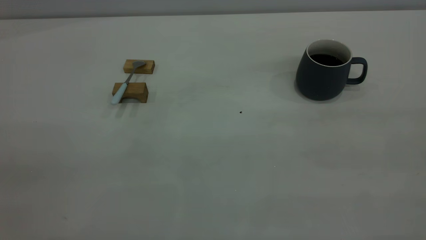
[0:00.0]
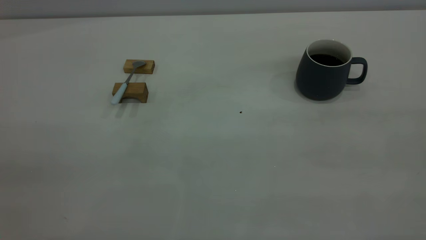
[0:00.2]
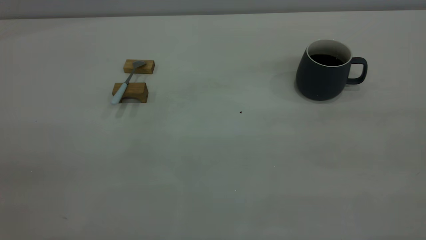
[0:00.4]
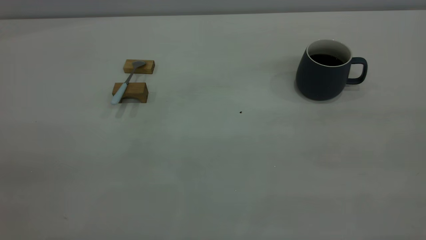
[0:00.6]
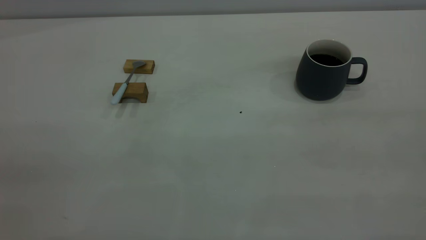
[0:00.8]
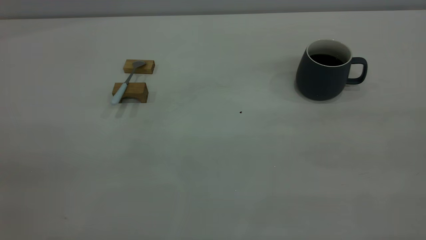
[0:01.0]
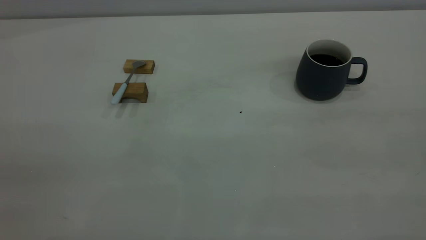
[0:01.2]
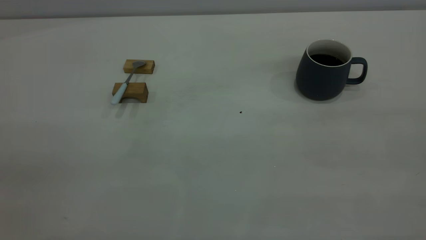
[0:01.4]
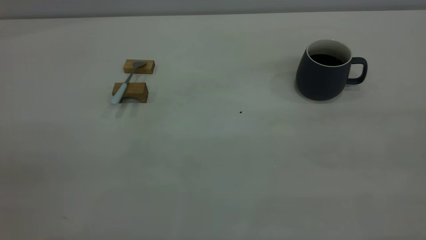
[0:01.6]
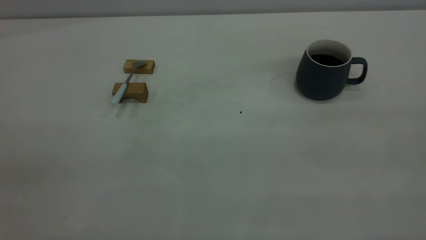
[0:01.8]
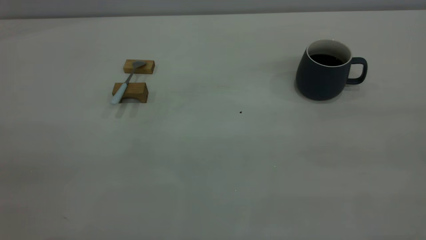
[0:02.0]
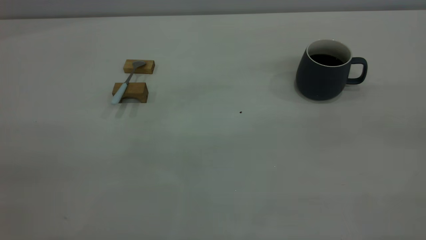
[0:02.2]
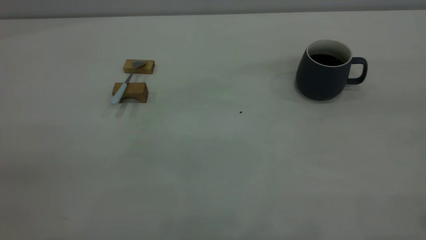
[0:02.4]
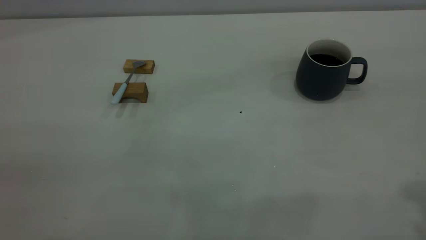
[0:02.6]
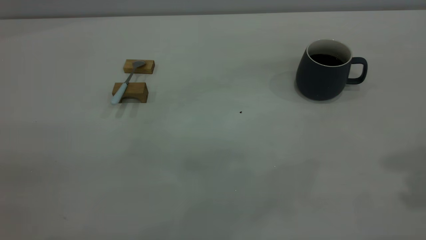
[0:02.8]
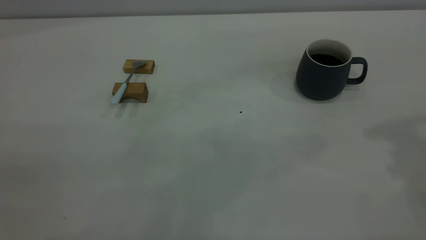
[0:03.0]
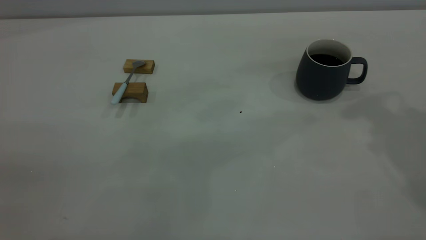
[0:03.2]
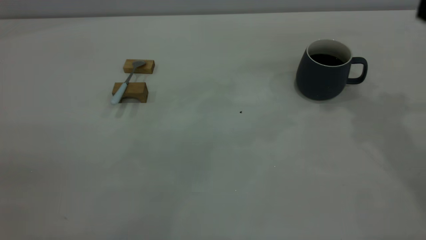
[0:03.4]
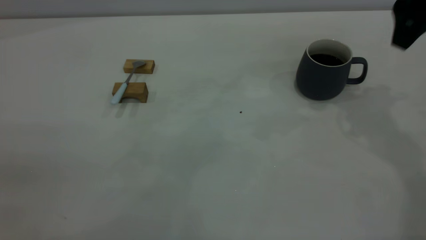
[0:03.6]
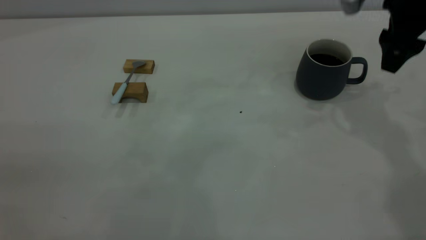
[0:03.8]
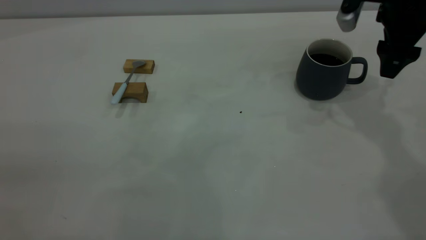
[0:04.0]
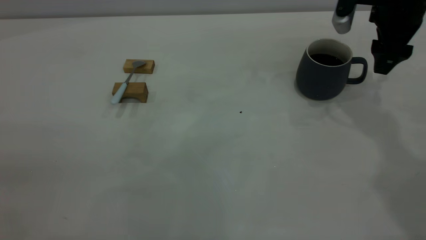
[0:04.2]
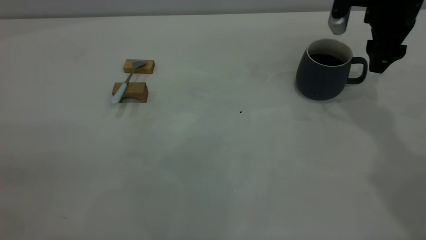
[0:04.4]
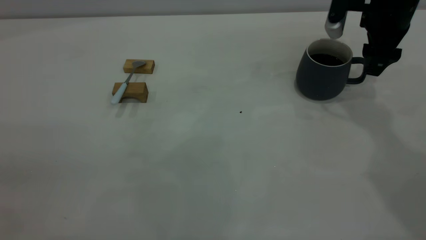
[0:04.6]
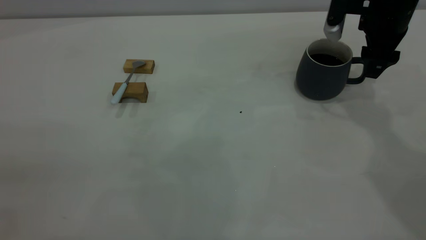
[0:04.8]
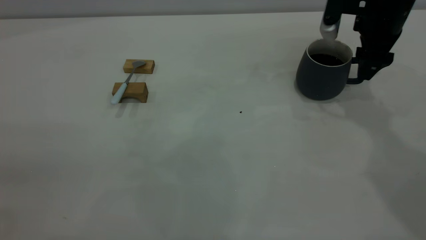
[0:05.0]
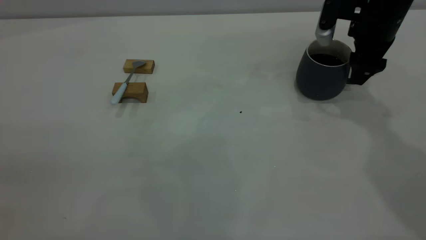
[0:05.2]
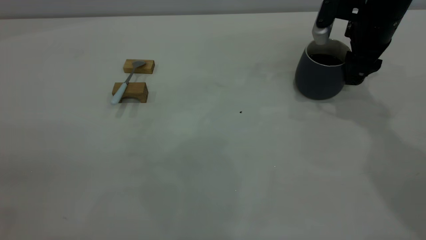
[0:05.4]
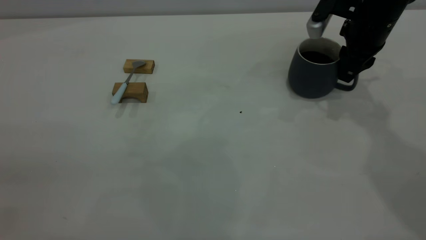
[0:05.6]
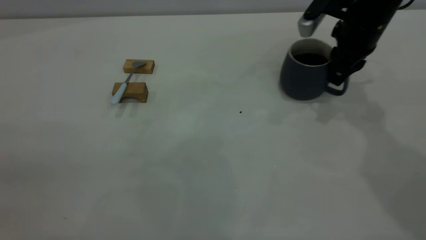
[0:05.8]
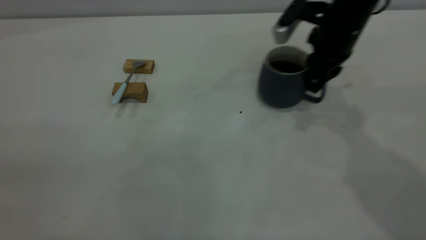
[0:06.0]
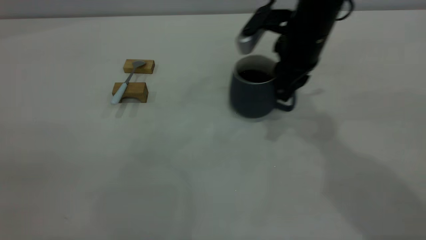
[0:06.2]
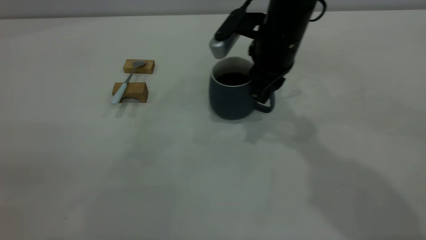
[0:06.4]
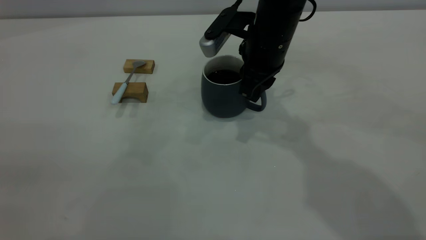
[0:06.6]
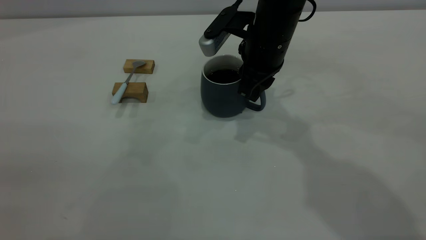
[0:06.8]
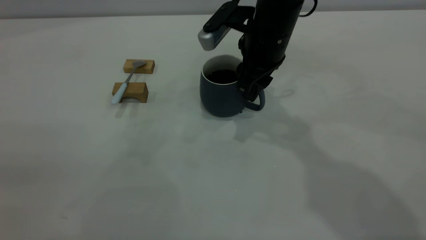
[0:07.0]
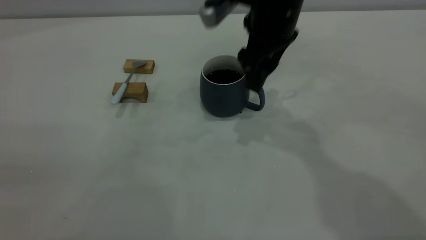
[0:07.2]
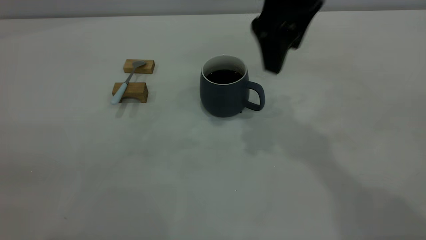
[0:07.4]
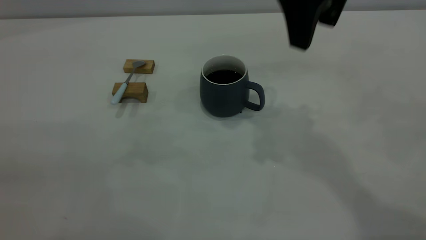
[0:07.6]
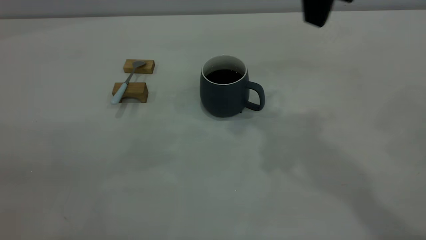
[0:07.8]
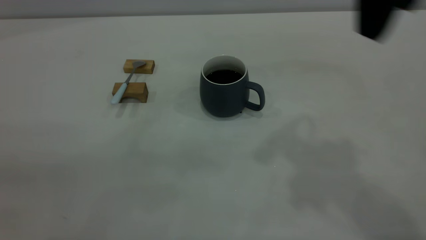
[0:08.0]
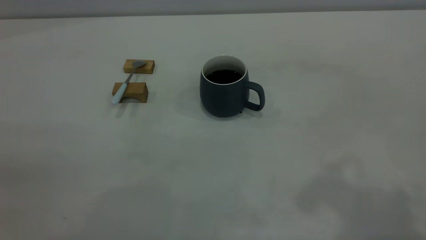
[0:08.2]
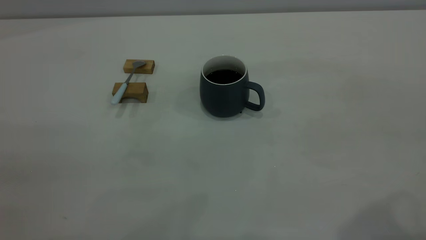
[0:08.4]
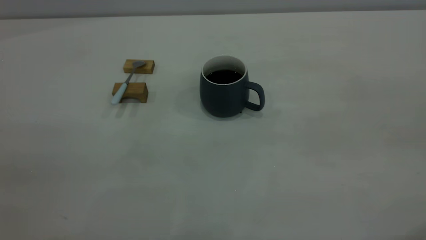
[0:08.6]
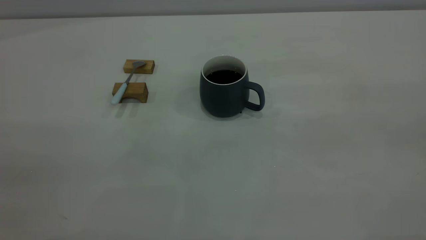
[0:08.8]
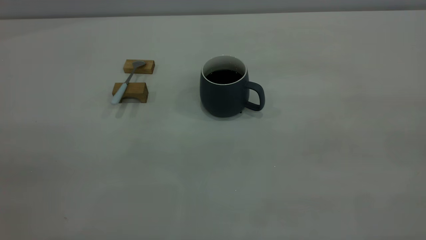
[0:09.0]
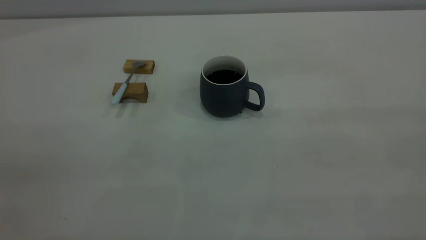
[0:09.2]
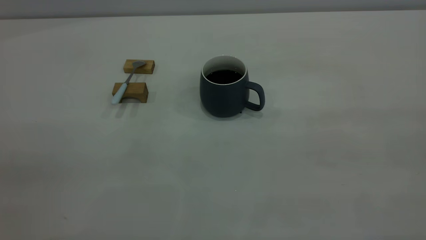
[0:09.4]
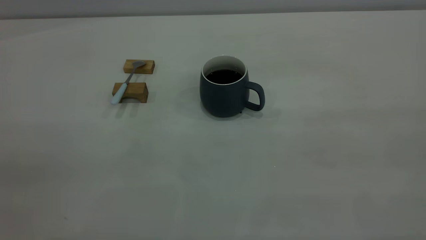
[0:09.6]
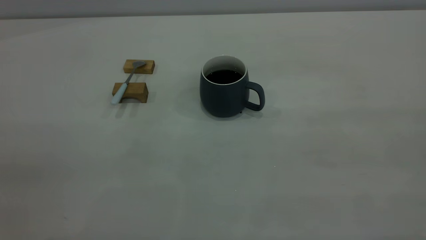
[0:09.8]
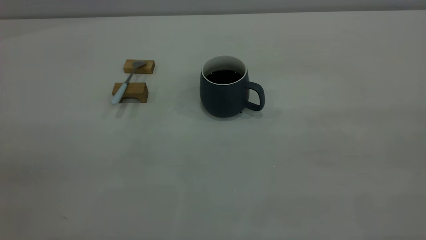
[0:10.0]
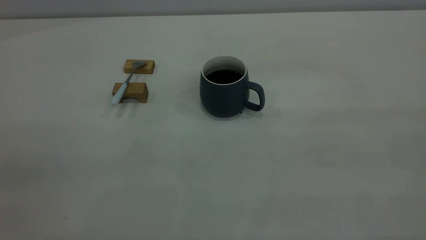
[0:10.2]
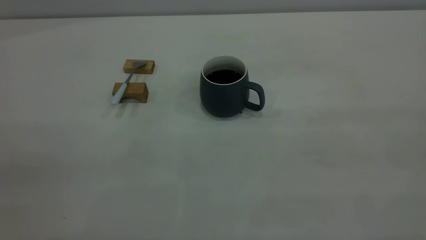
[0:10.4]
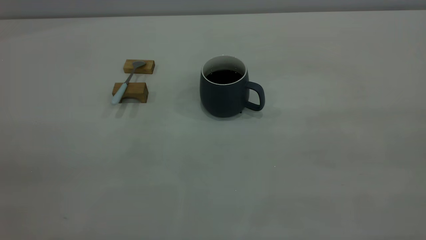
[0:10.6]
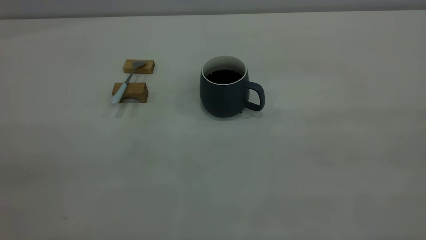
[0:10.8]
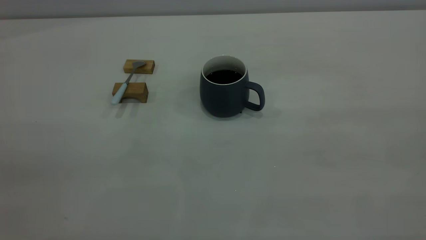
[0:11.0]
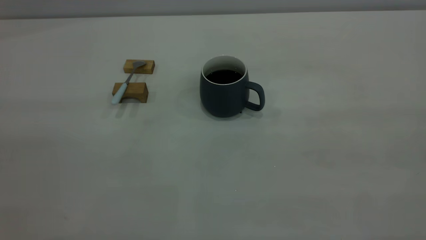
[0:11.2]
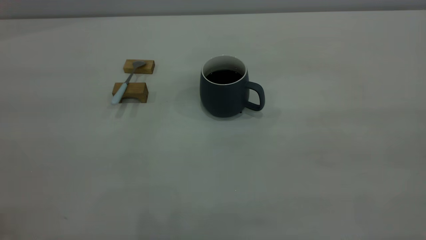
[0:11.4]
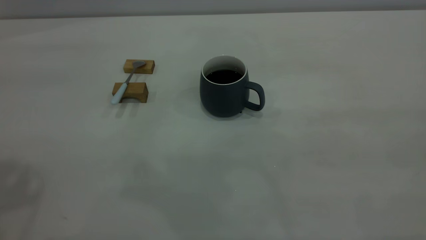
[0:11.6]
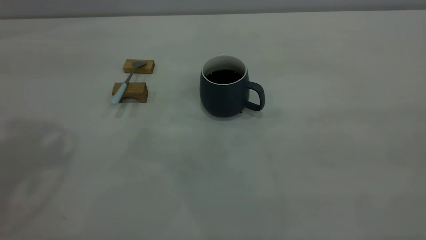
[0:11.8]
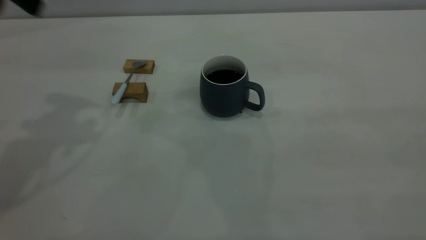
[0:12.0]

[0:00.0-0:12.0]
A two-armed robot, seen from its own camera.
Step, 0:00.0 to 0:07.4: Move the cup with coffee to the center of view.
0:00.0 to 0:01.6: The two grippers keep their place.
0:03.0 to 0:04.4: The right gripper travels downward and forward by about 25 cm.
0:04.4 to 0:06.0: The right gripper is displaced to the left by roughly 10 cm, and closes.
0:06.0 to 0:07.6: The right gripper shifts roughly 20 cm upward and backward, and opens its fingers.
0:07.6 to 0:09.0: The right gripper heads backward and to the right, covering approximately 40 cm.

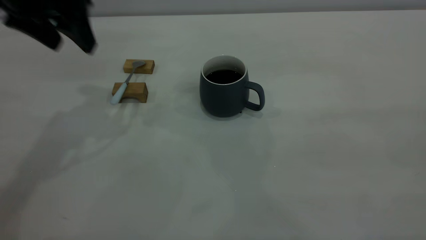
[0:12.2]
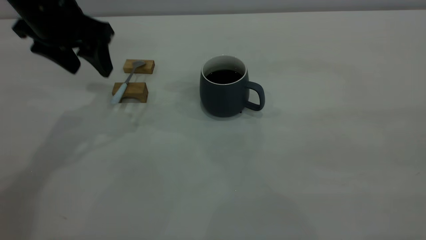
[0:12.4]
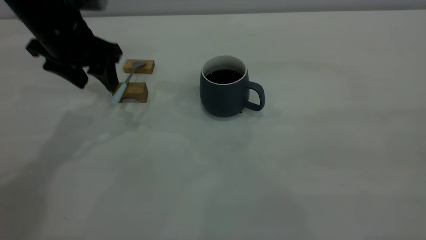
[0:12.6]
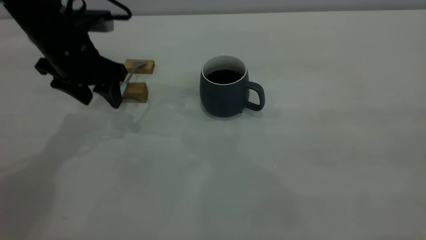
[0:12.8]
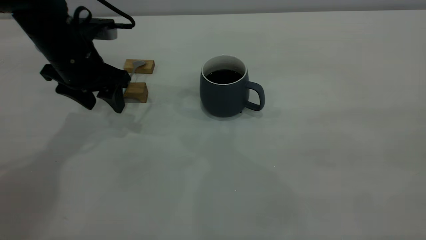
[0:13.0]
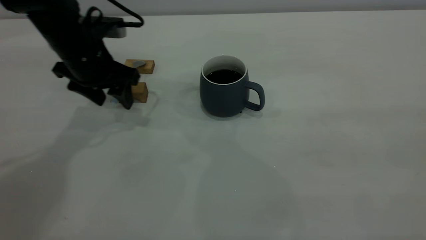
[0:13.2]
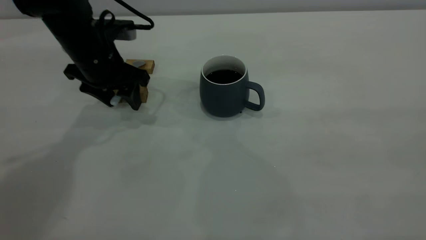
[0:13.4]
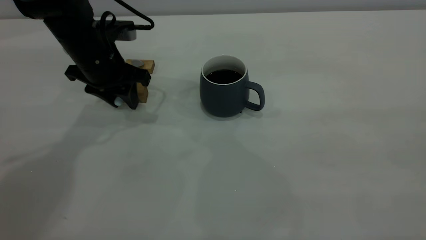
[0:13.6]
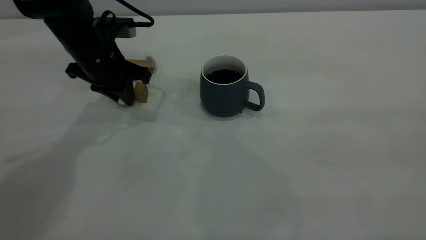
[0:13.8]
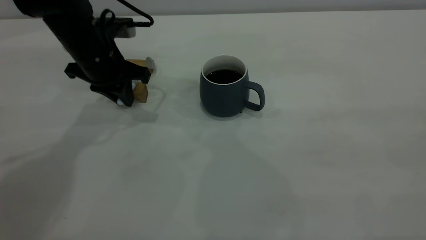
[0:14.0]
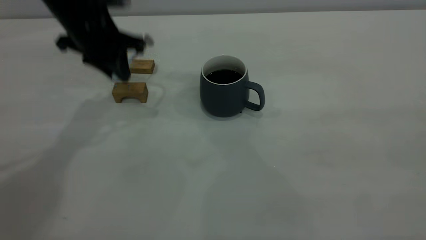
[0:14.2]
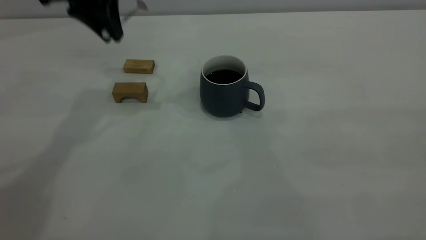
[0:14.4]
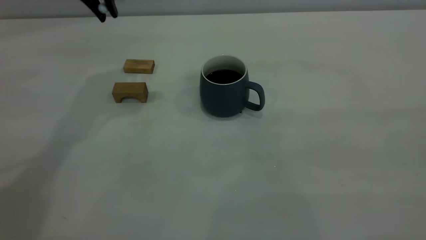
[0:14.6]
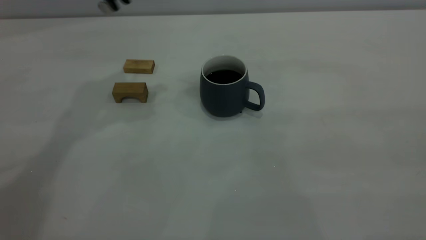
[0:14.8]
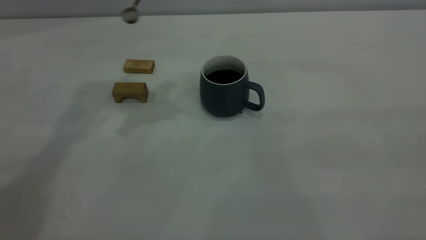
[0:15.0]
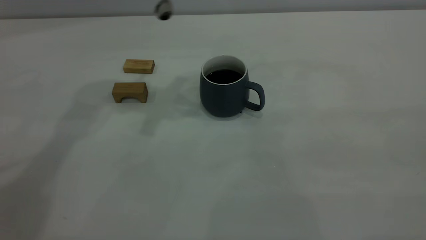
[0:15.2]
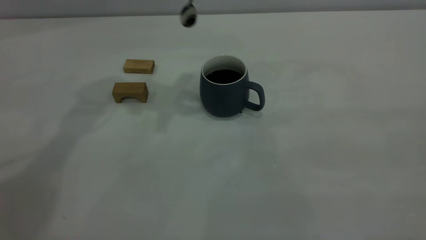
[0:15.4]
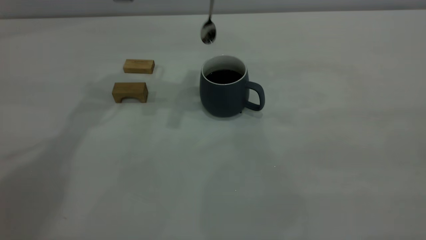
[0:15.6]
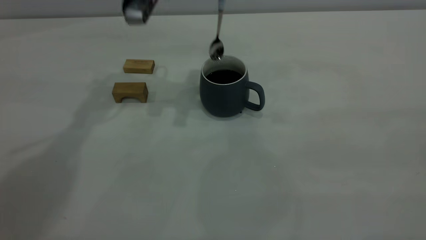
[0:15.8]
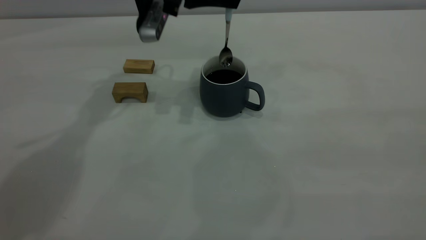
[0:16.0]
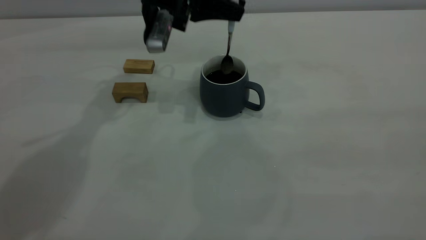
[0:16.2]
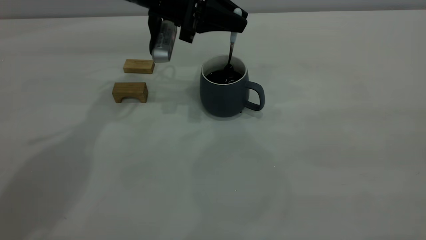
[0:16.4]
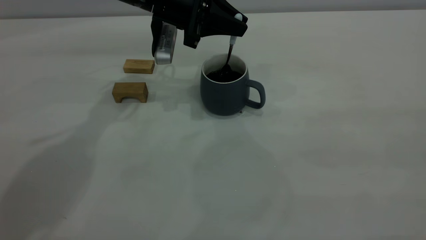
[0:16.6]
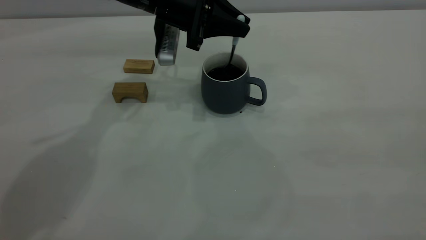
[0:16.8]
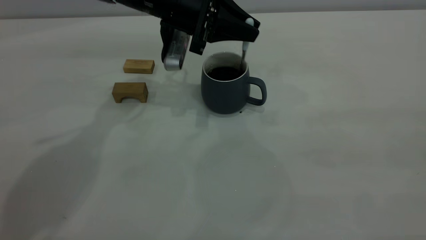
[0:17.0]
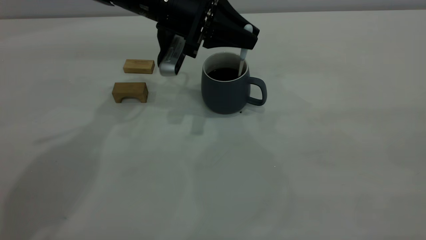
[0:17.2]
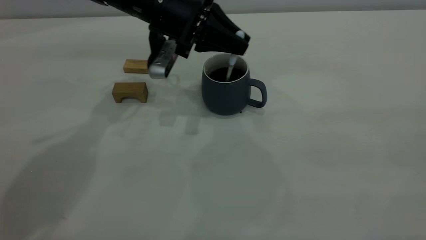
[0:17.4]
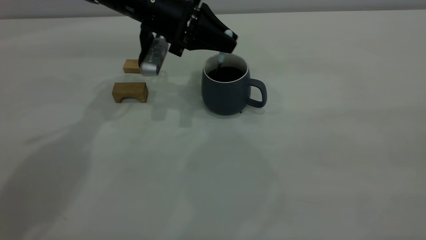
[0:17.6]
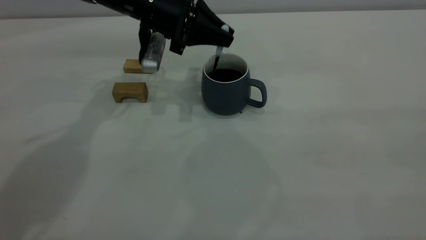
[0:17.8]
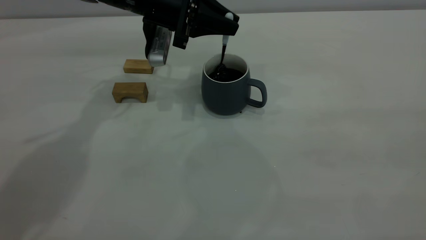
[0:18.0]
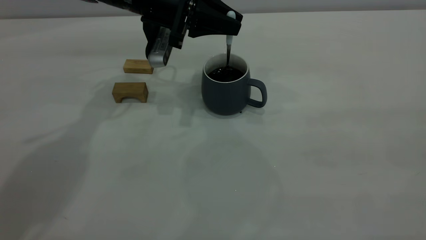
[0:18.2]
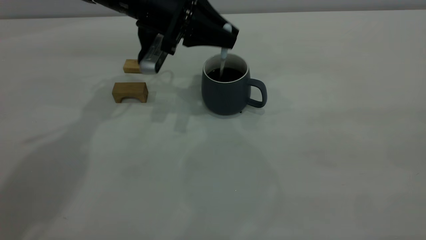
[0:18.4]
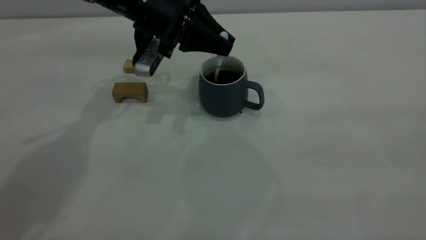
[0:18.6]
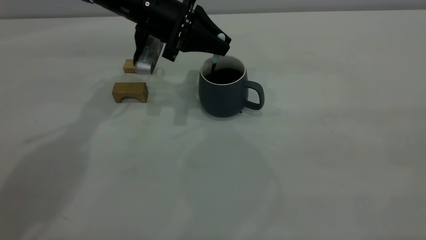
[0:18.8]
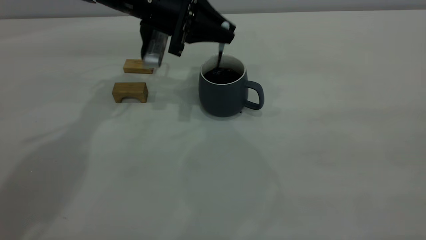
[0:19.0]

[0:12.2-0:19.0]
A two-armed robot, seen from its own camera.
0:12.2 to 0:13.6: The left gripper is displaced downward by some 15 cm, and closes.
0:13.6 to 0:15.0: The left gripper moves upward, approximately 20 cm, and closes.
0:15.0 to 0:16.2: The left gripper travels downward by some 15 cm.
0:16.2 to 0:19.0: There are only small adjustments of the grippers.
